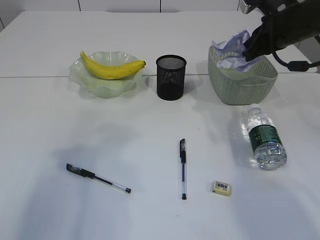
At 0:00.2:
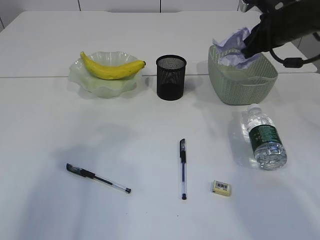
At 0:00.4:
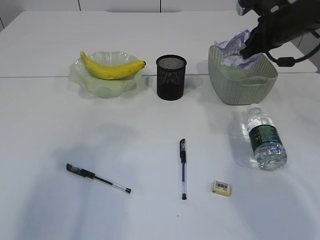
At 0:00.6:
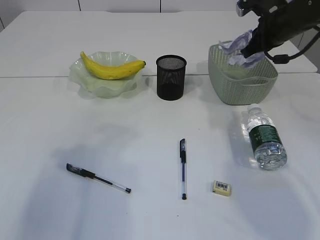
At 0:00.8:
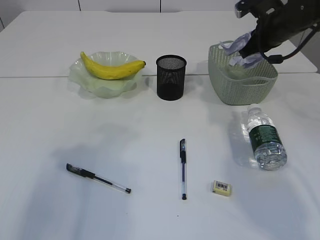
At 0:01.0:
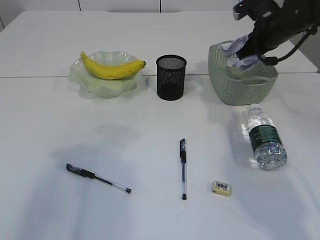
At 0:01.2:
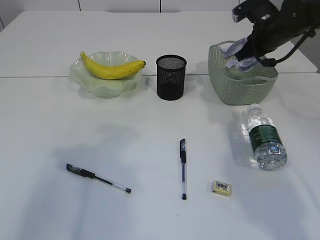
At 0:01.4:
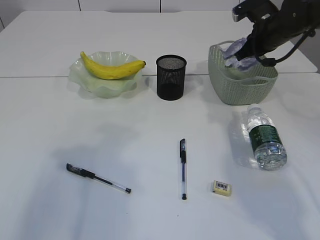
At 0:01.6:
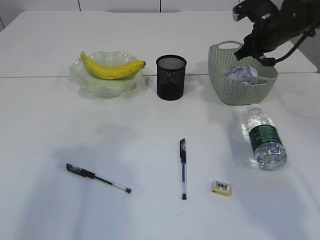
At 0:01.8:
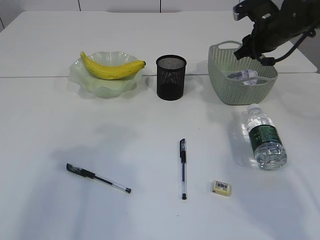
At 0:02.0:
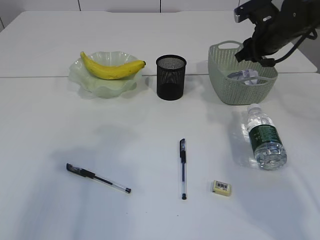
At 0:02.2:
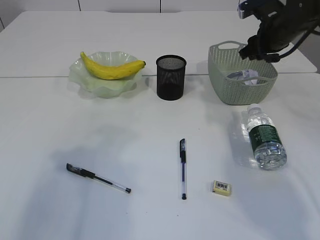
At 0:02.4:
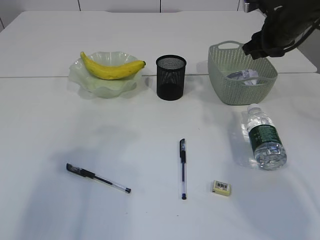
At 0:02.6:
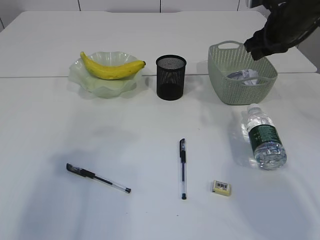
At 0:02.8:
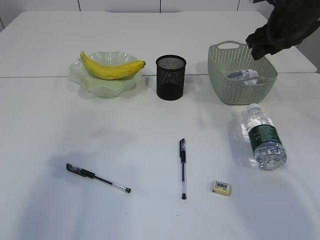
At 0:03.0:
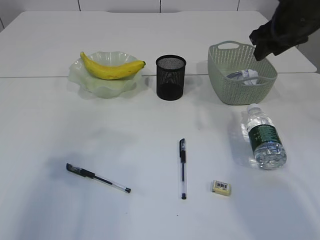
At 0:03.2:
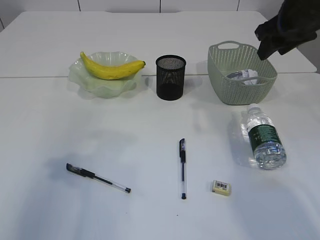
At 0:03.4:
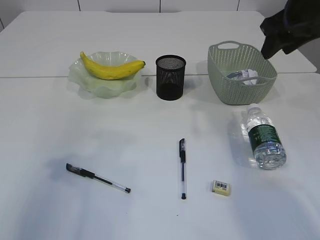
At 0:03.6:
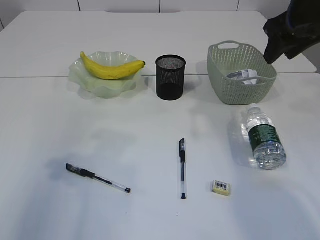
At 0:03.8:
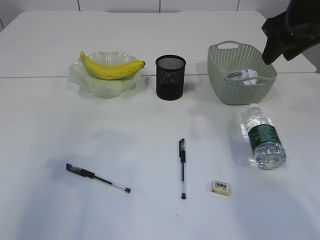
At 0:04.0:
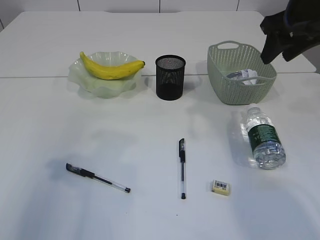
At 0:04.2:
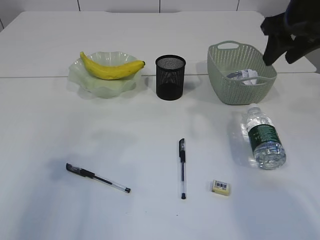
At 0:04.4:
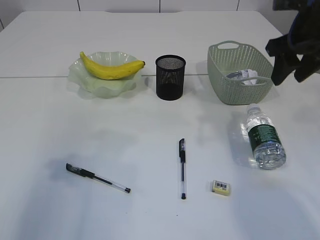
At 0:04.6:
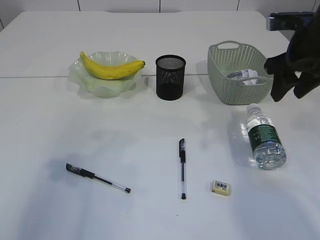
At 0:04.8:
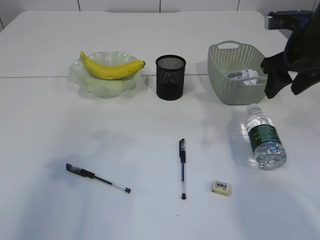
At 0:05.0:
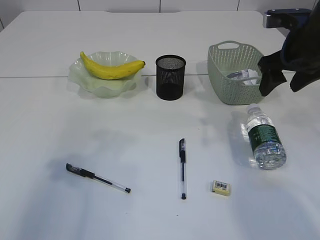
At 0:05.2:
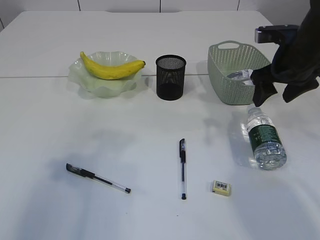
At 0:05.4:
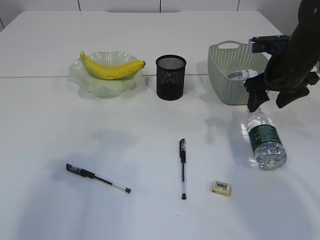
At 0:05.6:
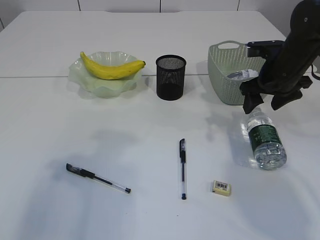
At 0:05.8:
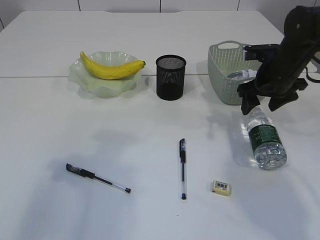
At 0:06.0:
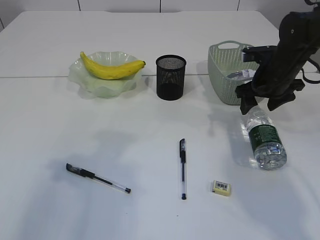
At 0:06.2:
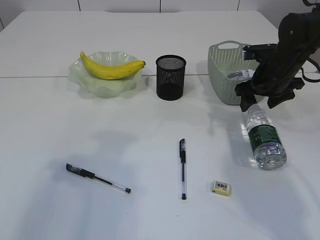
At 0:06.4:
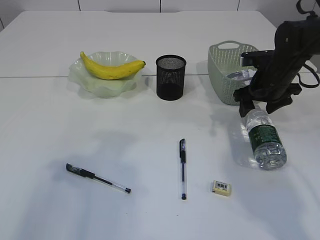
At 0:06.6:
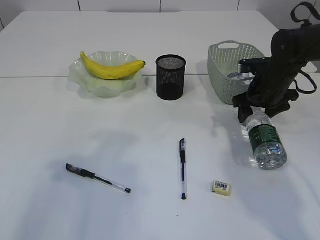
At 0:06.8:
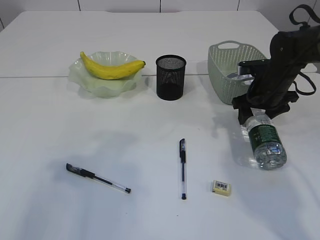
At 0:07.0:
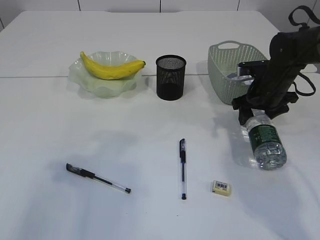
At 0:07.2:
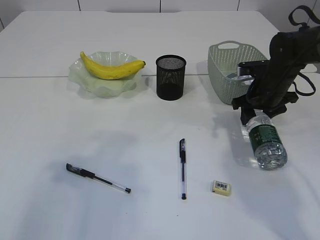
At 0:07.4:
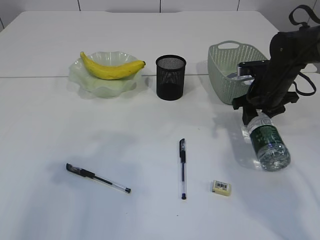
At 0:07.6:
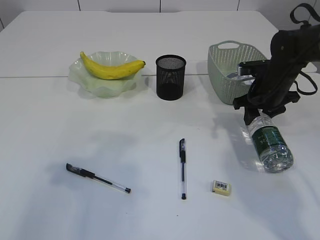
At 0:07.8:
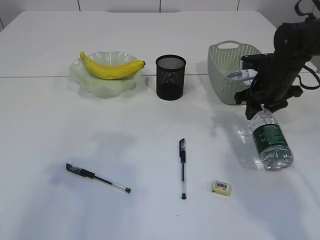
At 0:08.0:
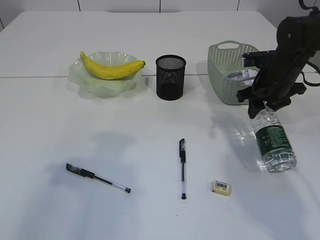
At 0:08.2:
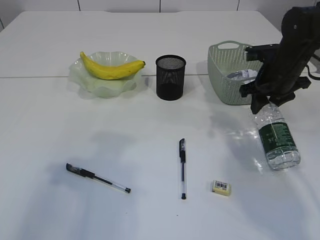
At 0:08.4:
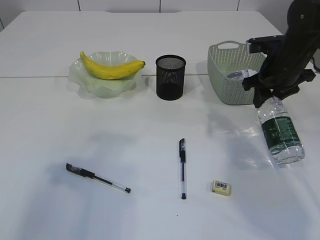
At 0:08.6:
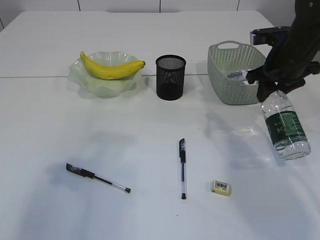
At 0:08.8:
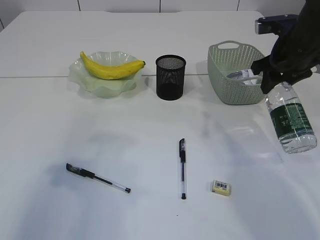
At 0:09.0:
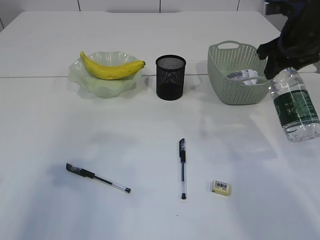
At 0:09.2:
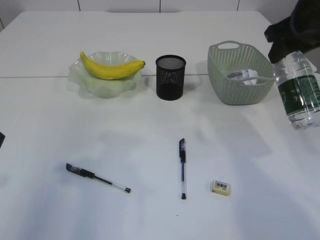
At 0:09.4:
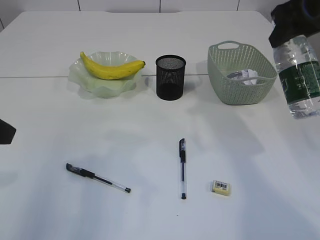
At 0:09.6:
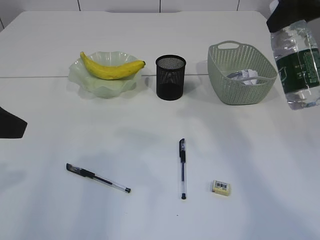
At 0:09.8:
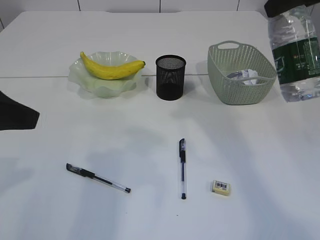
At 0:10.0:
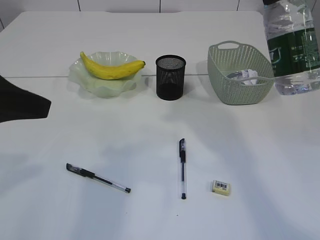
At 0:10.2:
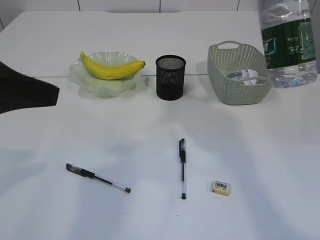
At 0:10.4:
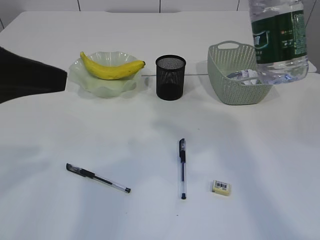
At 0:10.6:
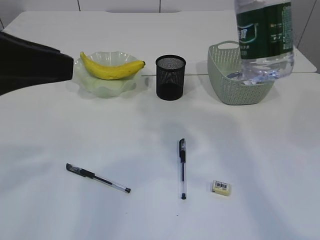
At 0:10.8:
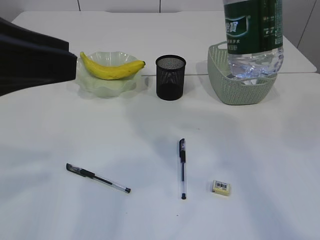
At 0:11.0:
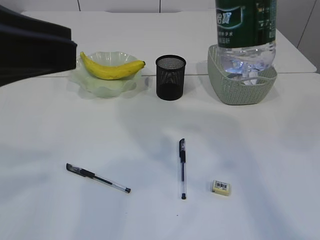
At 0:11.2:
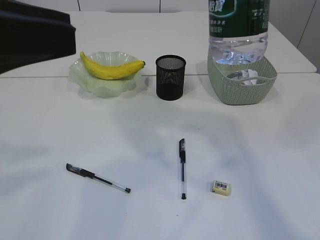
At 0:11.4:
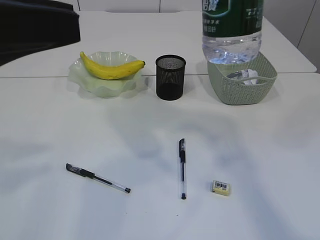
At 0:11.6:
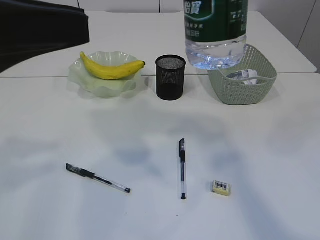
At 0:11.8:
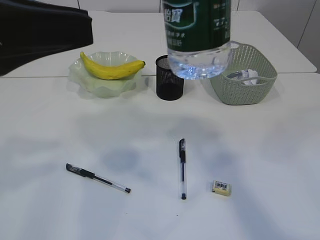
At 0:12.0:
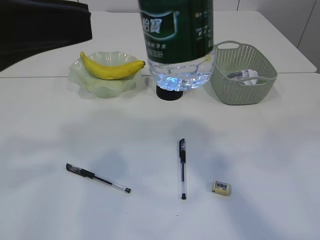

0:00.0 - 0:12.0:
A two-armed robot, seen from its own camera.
Step, 0:00.0 - 0:02.6: Place the waste paper in the basket.
Step, 0:02.8 - 0:08.4: Pick up the bottle with the right arm.
0:00.0 - 0:01.6: The right gripper travels forward by some 5 cm.
0:01.6 - 0:03.0: The right gripper travels backward and upward by about 10 cm.
0:03.0 - 0:04.4: The right gripper shifts approximately 5 cm backward.
0:04.4 - 0:06.0: The right gripper moves downward and forward, about 15 cm.
0:06.0 - 0:07.6: The right gripper closes up.
0:07.6 - 0:09.0: The right gripper goes some 15 cm upward.
0:09.0 - 0:10.4: The right gripper shifts roughly 20 cm upward and backward; the left gripper ends up approximately 5 cm from where it was.
0:10.4 - 0:12.0: The right gripper heads to the left and backward, covering some 10 cm.

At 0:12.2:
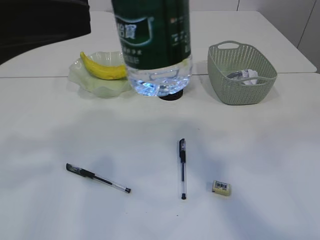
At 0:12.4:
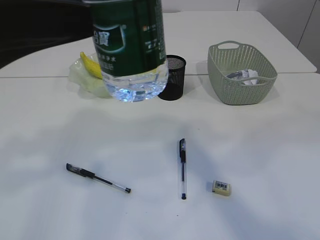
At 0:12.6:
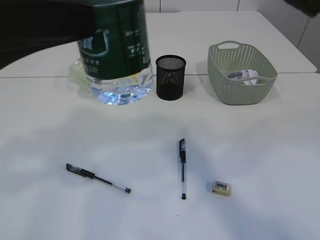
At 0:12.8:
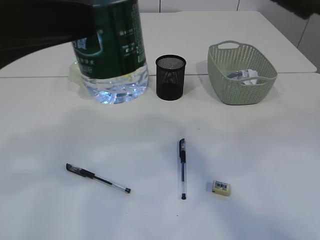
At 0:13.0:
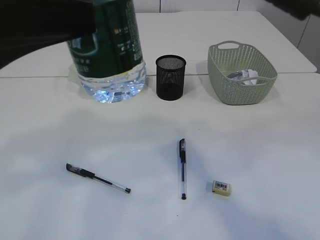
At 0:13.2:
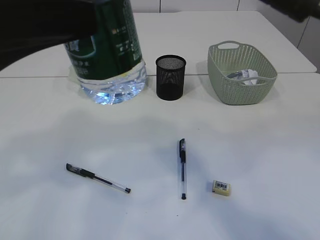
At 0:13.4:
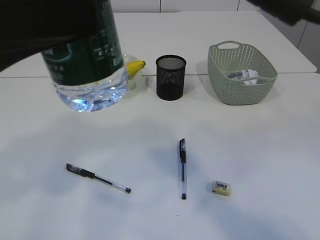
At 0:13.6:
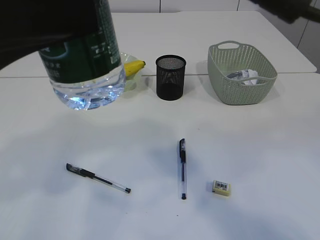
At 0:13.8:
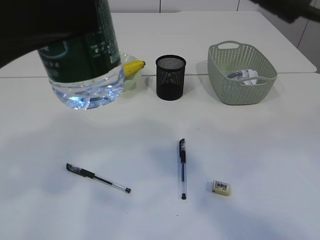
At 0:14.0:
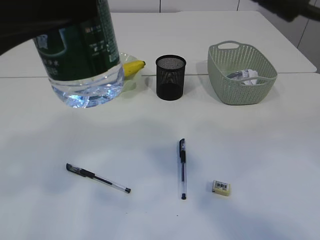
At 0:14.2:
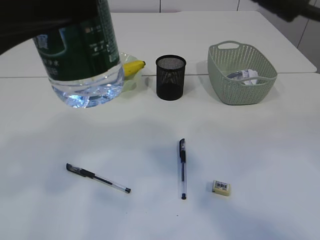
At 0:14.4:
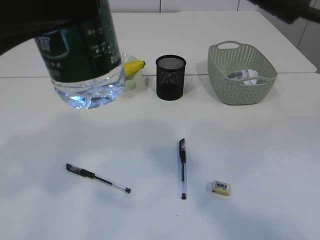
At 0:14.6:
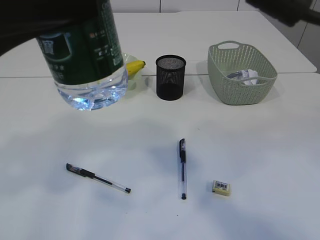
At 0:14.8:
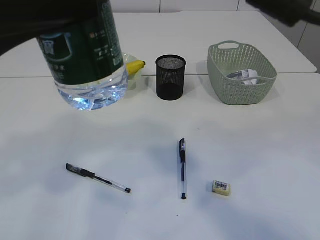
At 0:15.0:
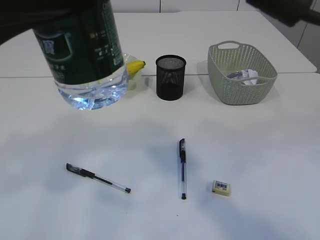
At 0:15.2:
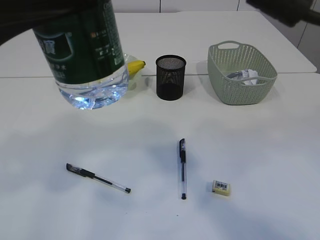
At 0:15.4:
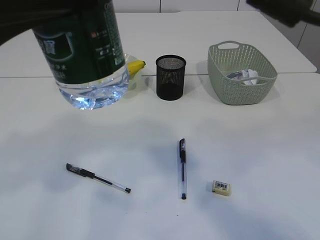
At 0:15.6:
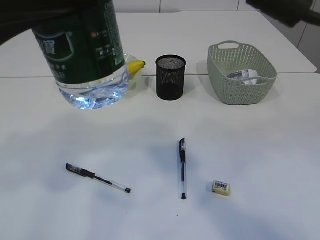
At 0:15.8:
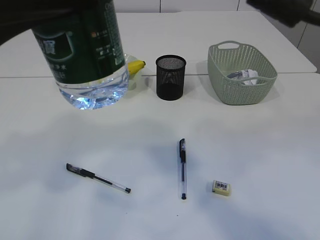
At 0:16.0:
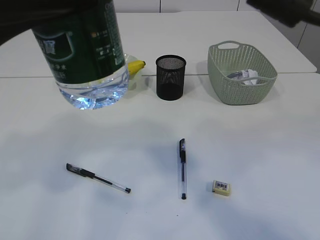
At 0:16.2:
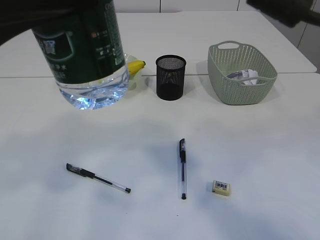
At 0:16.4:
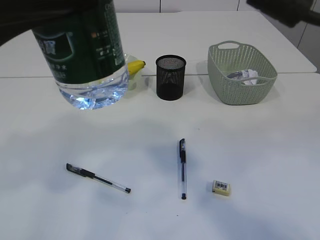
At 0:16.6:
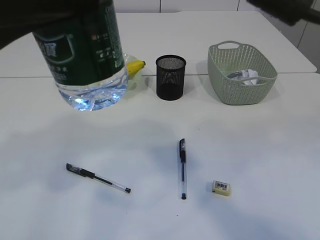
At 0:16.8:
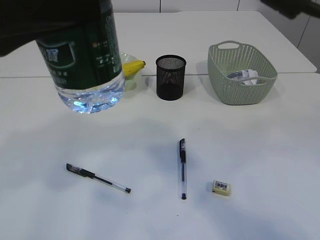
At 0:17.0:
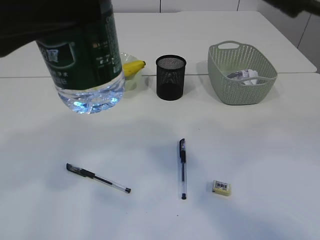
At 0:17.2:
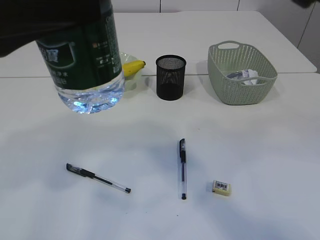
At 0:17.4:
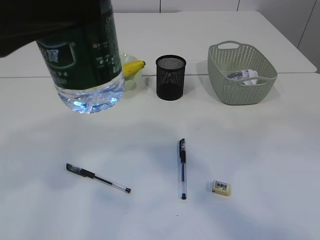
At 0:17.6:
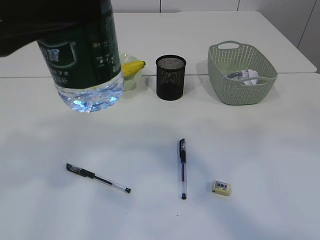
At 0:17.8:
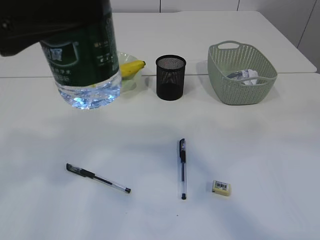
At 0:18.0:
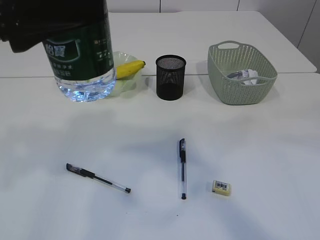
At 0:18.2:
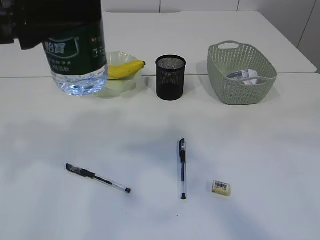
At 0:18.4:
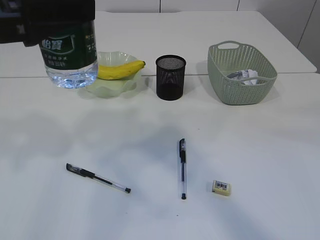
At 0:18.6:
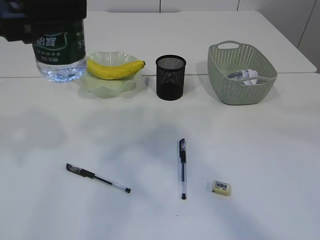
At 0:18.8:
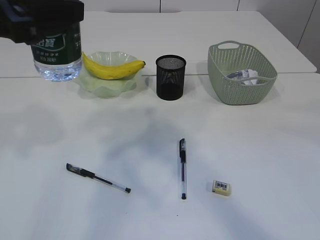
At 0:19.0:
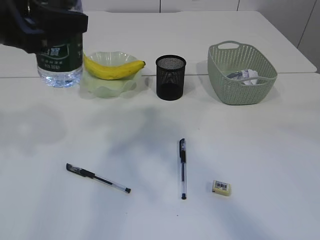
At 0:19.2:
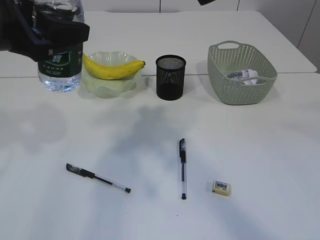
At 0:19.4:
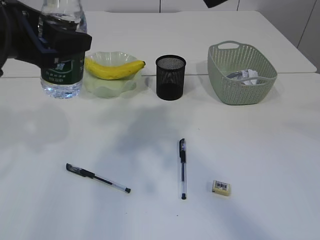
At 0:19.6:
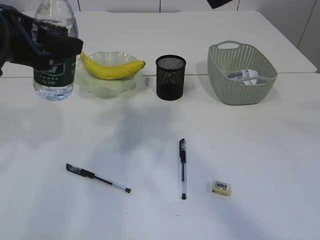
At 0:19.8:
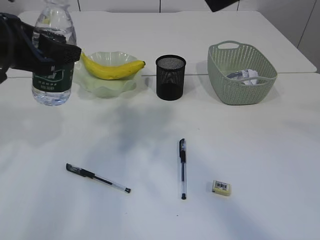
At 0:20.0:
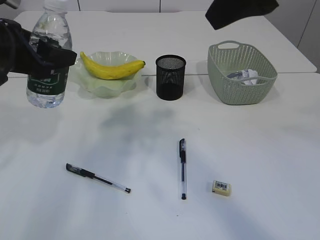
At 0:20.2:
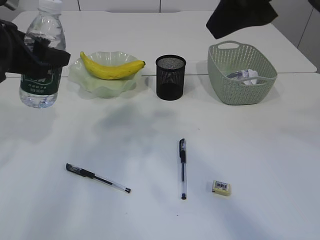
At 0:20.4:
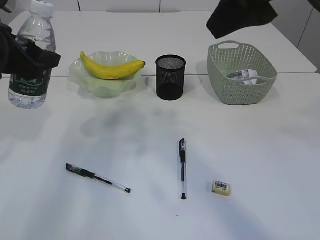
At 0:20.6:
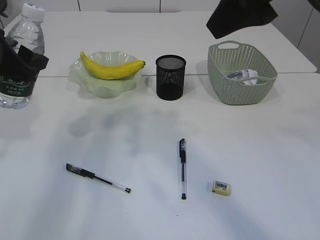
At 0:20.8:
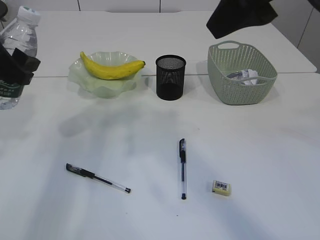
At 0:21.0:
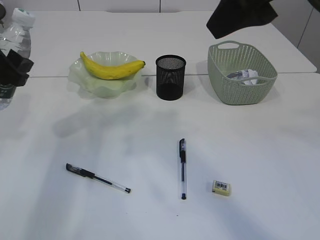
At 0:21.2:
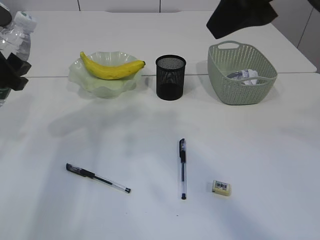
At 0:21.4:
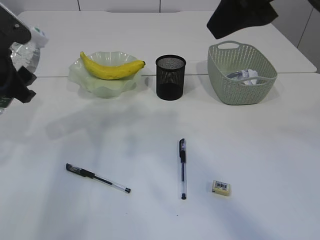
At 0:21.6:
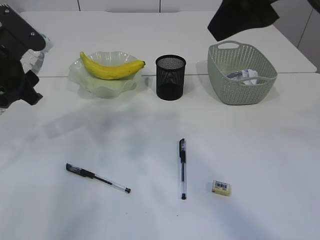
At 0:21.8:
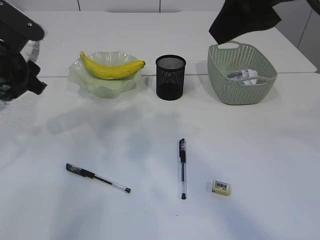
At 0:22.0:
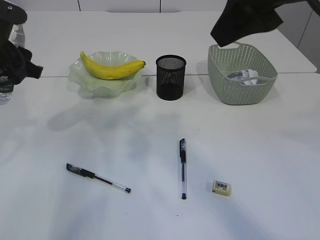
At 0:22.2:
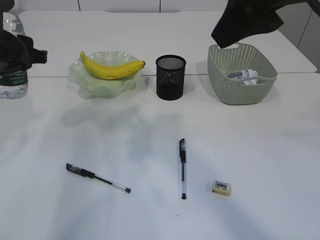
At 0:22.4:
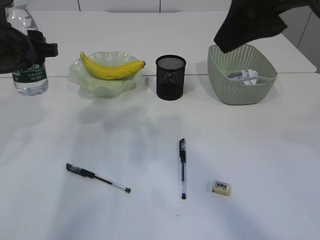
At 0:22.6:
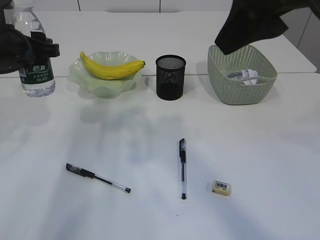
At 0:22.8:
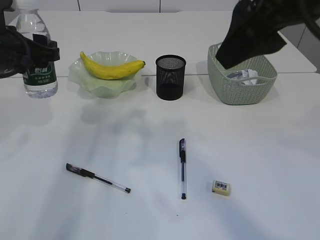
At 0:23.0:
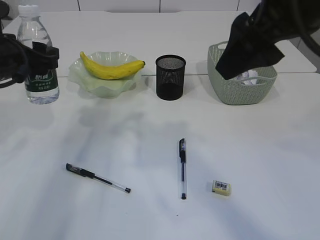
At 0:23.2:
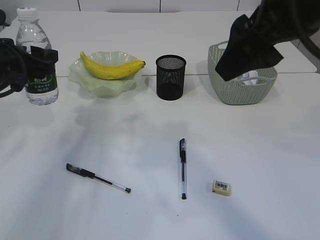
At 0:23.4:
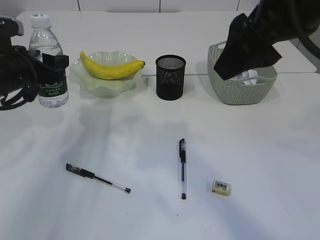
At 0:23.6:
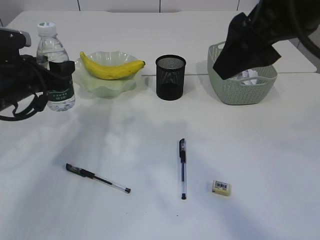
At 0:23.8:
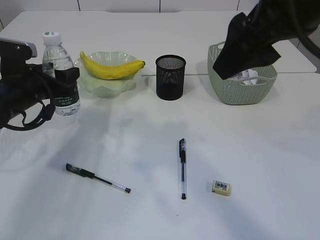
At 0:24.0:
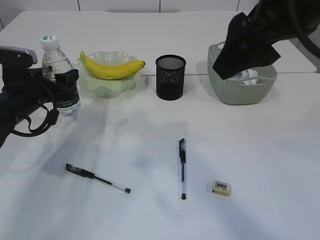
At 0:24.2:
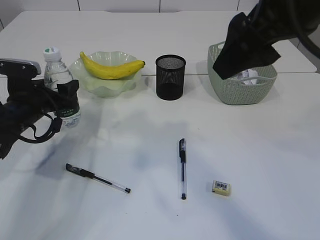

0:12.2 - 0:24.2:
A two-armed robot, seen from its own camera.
Step, 0:12.2 - 0:17.0: transfer the bottle to the left arm.
0:12.2 - 0:13.8: The right gripper heads to the left, covering roughly 5 cm.
0:13.8 - 0:16.6: Both grippers stay about where they are.
0:16.6 - 0:18.2: The right gripper ends up roughly 5 cm from where it was.
0:18.2 - 0:19.8: The right gripper moves roughly 5 cm. Meanwhile the left gripper is displaced forward and downward by some 10 cm.
0:22.6 - 0:24.2: The left gripper shifts some 15 cm downward.
